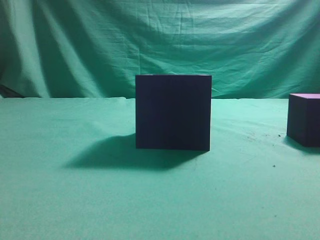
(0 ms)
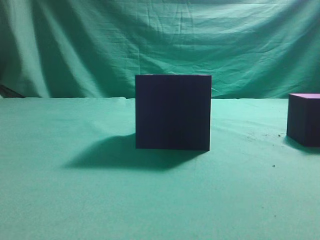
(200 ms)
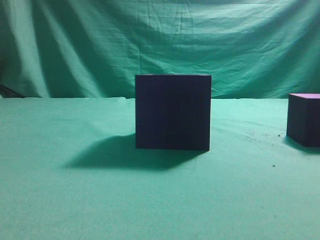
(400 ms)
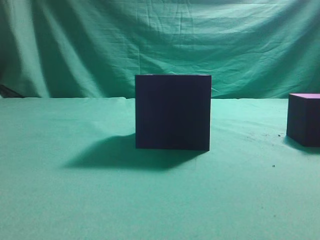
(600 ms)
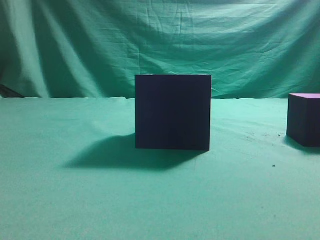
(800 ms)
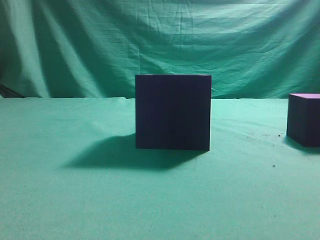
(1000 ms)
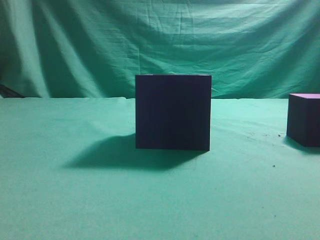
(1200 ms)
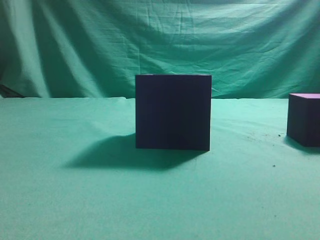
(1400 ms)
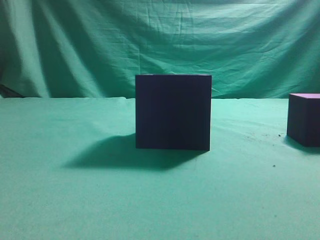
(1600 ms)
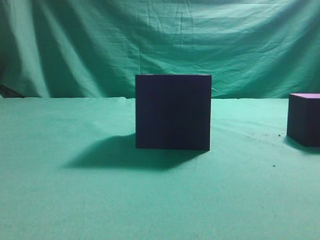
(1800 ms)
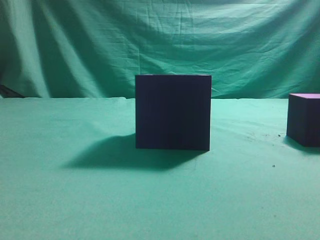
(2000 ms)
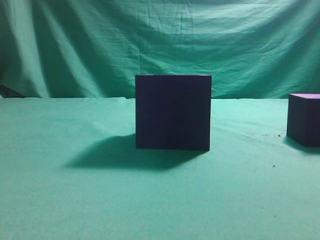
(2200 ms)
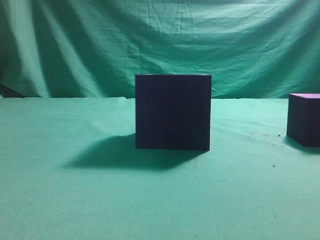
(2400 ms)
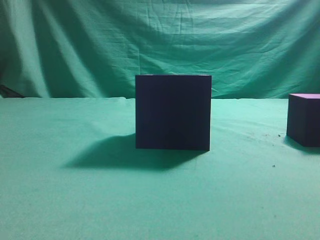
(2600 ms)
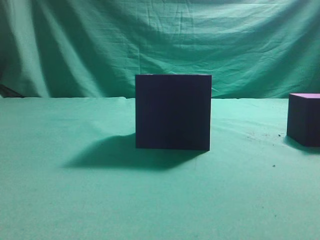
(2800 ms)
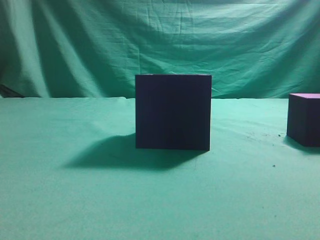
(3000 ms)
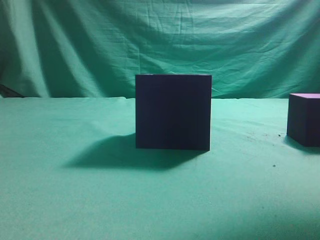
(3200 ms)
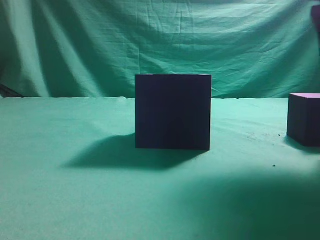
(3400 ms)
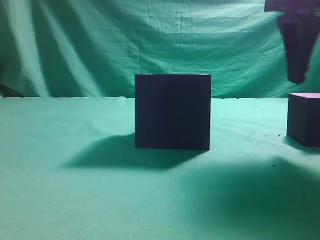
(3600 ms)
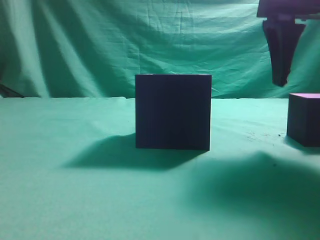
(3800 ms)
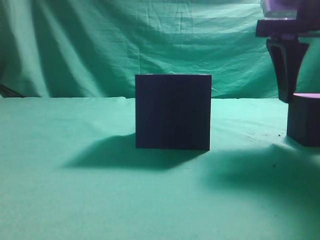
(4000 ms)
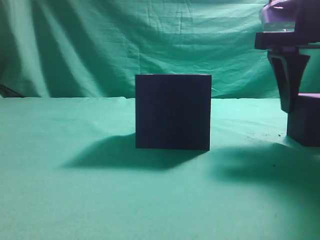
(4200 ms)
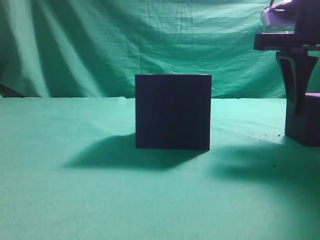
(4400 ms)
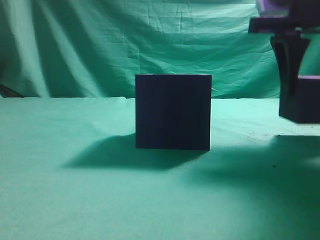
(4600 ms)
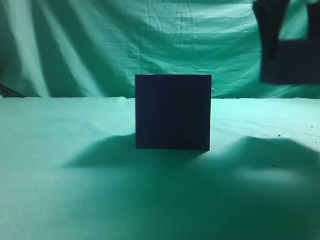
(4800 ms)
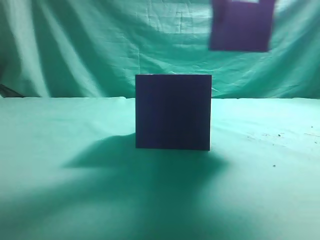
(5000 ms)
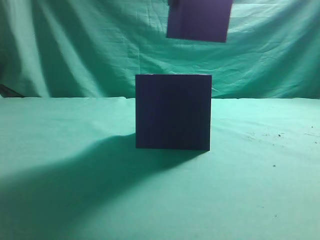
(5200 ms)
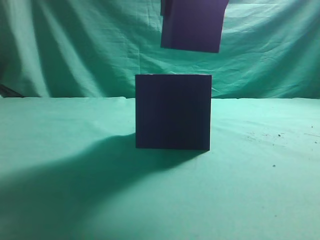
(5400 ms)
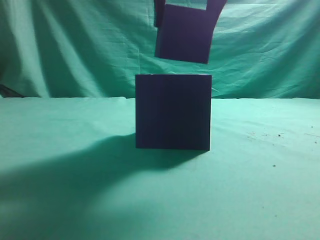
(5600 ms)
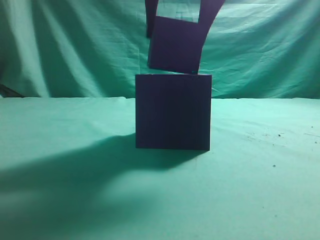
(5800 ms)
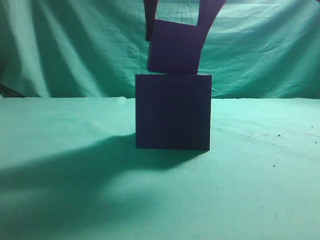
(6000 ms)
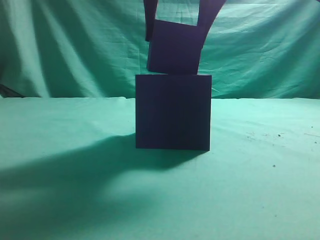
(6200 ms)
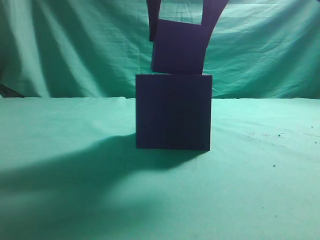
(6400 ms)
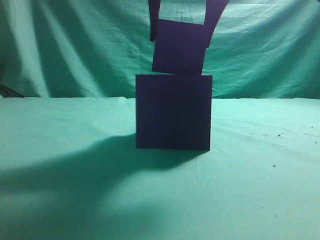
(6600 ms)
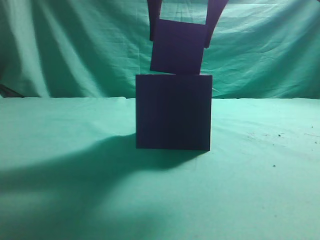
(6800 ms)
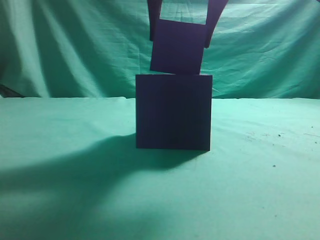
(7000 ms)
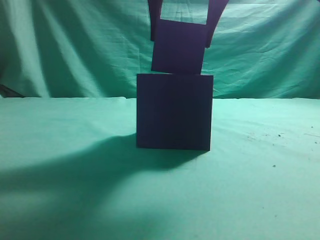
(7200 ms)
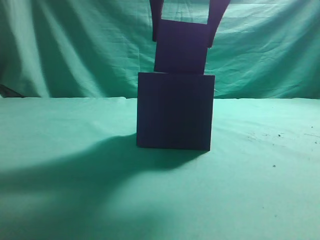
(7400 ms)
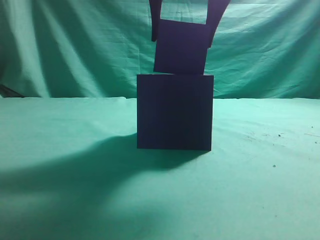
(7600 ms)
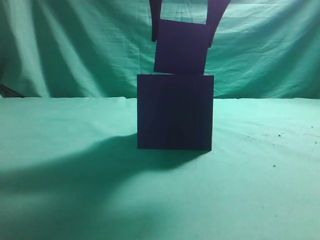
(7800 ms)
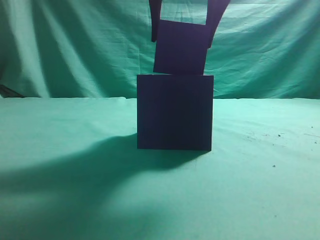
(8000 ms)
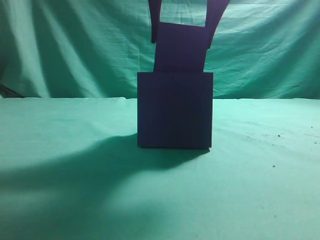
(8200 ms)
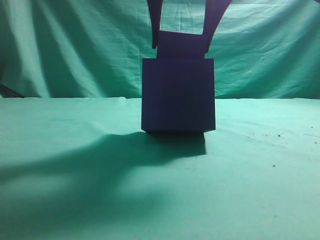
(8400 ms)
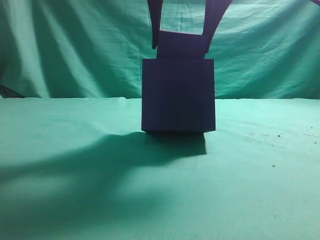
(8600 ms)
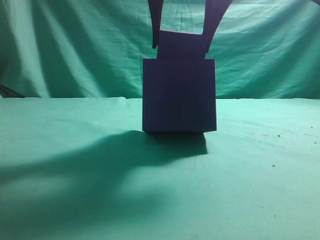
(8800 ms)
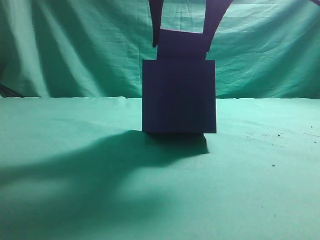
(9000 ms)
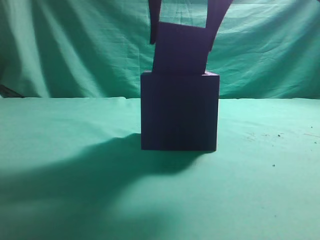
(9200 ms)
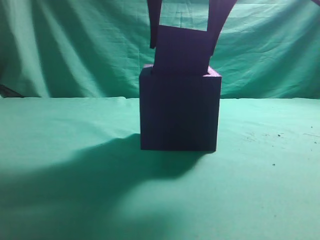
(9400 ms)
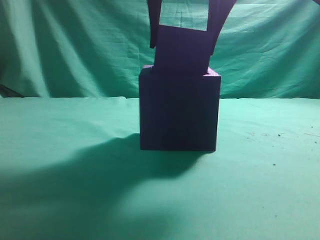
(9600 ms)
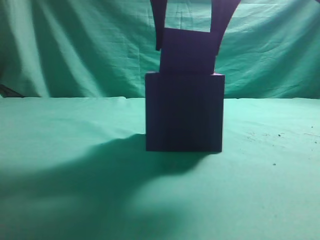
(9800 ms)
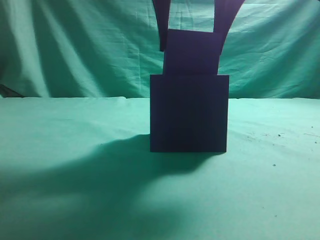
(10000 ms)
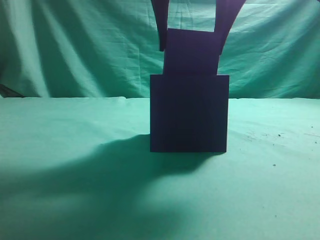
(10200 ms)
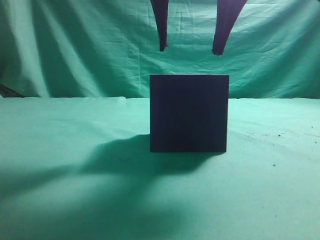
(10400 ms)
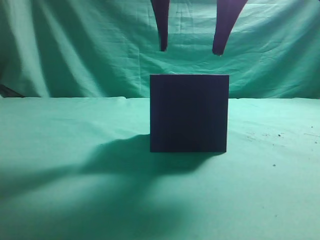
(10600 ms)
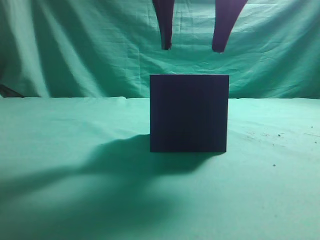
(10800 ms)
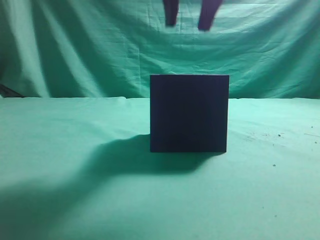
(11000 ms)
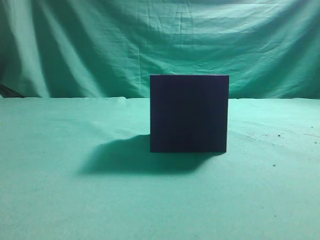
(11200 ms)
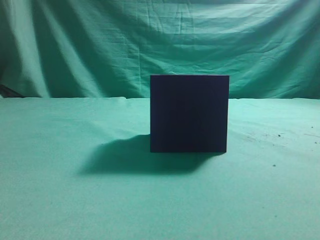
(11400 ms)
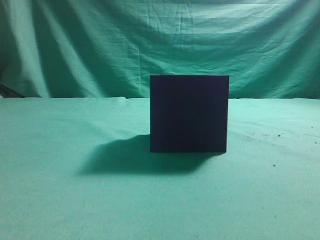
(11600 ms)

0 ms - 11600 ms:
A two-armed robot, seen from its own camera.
Task of the whole recording: pick up the cube block and place it into the cube groove.
Step, 0 ms - 4600 ms: Grasp the cube.
Step, 4800 ms - 10800 ms: Place cube into the cube-shaped recess.
2800 ms - 4400 ms: The right gripper shifts about 15 cm forward, downward and to the left, and opens its fingers.
4400 ms - 5800 ms: The right gripper heads to the left and upward, covering roughly 15 cm.
5800 ms - 10200 ms: The grippers move only a little.
10200 ms - 11600 ms: The right gripper moves upward, backward and to the right, roughly 20 cm, and closes its fingers.
